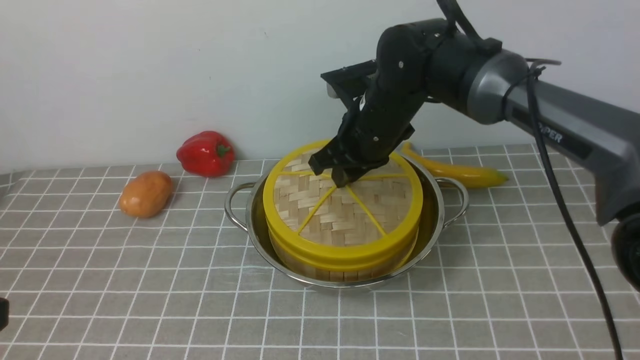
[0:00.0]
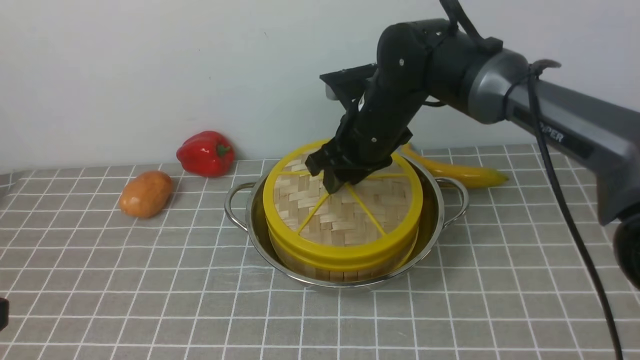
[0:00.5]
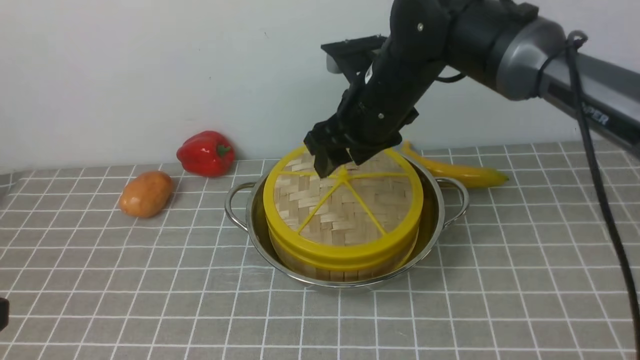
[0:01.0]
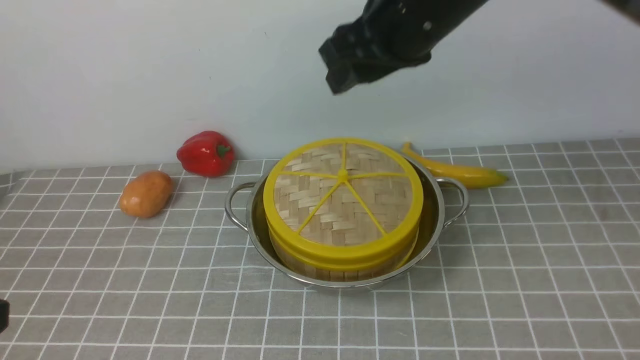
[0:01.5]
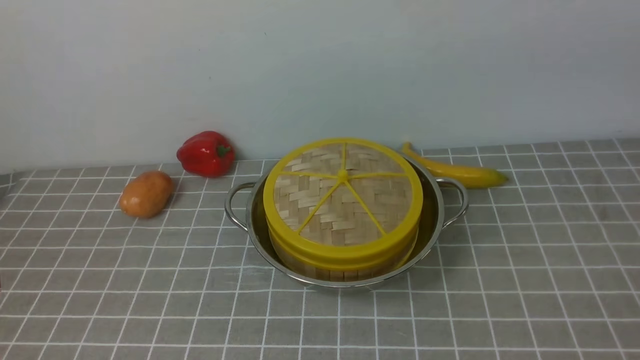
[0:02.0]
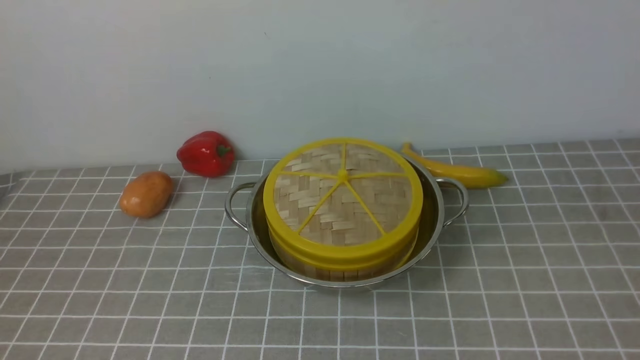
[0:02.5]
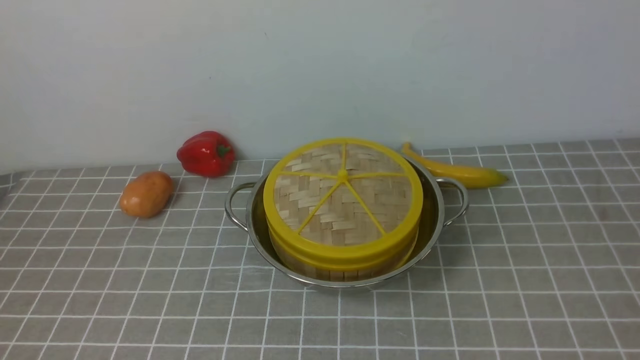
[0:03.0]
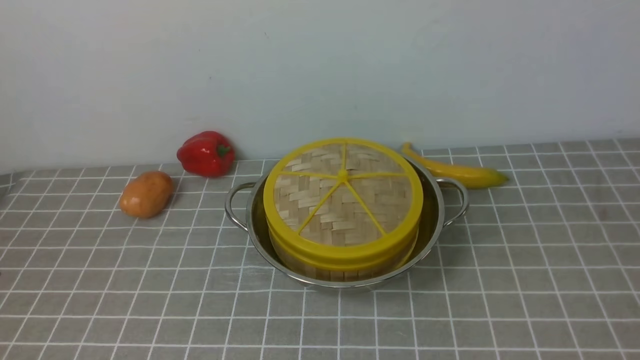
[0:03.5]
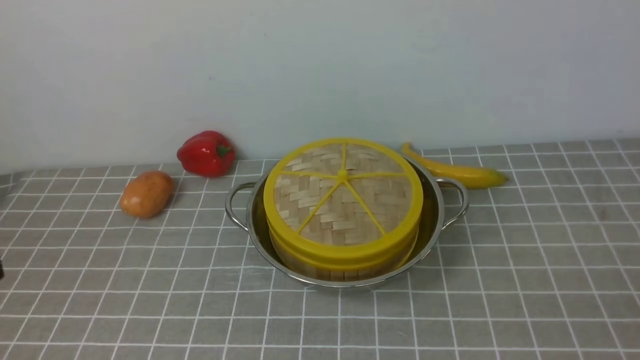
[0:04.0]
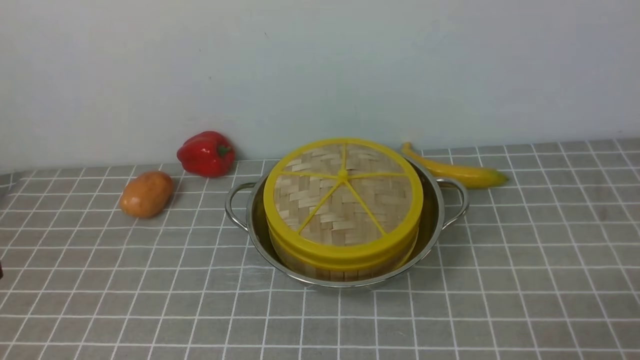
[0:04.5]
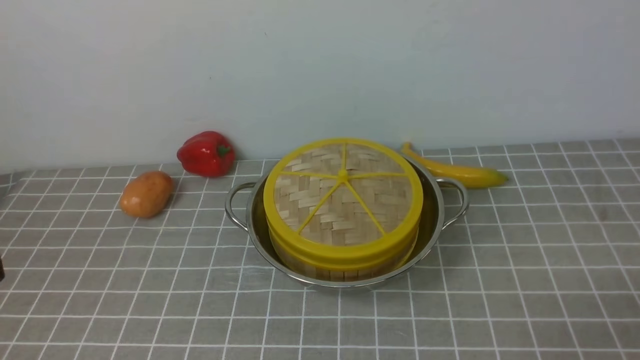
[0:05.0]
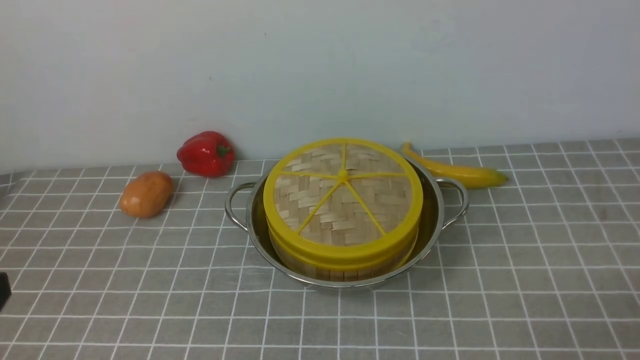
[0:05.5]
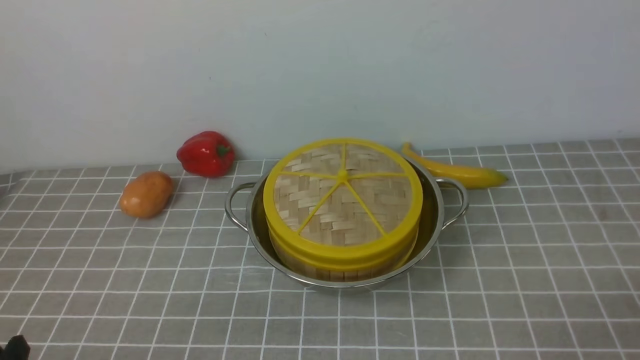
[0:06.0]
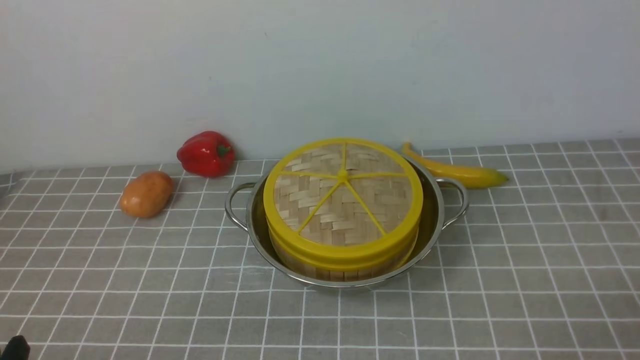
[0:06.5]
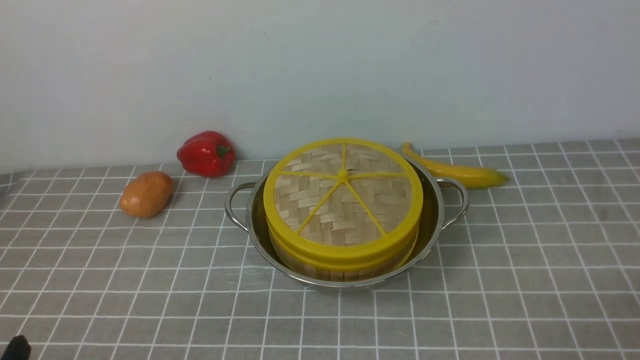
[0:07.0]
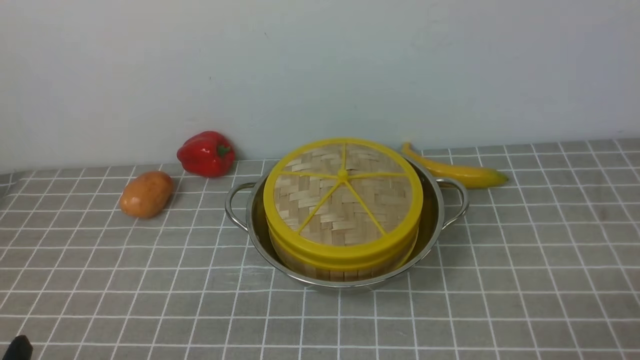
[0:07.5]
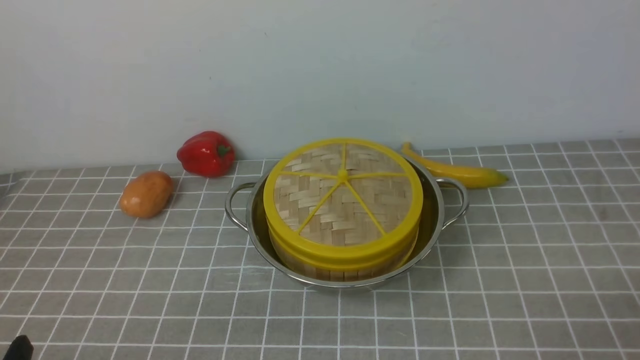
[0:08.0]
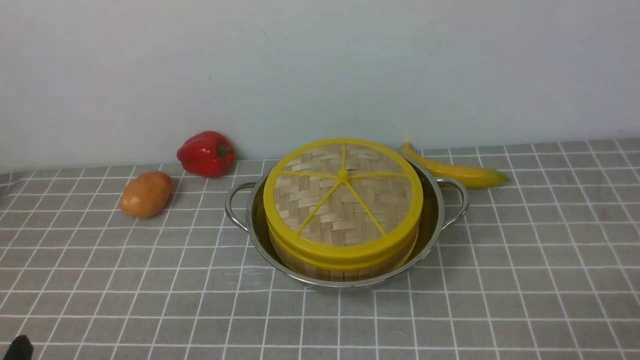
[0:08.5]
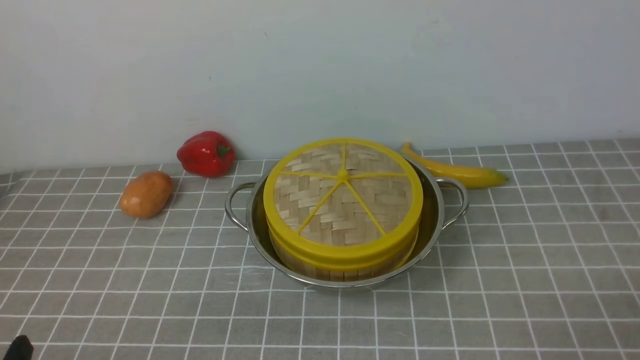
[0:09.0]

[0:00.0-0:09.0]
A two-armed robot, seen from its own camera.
Task of the whole recording: place the steamer in the pot on the grey tablecloth, and put the lid on the steamer.
0:00.0 to 0:02.0: The right gripper goes roughly 40 cm upward, backward and to the right, and opens, then closes again.
0:07.0 to 0:09.0: Both grippers stay about where they are.
